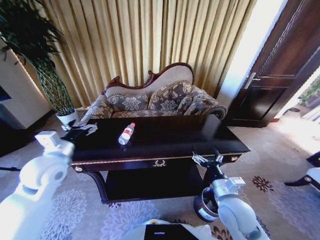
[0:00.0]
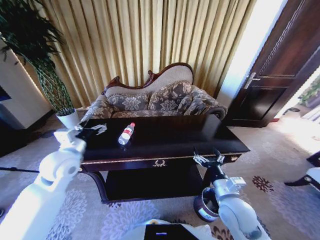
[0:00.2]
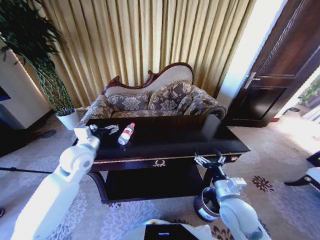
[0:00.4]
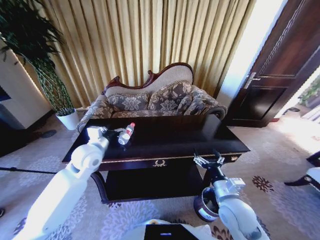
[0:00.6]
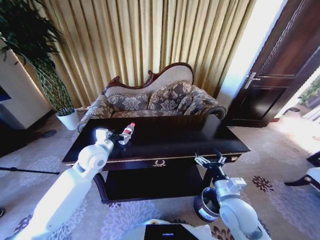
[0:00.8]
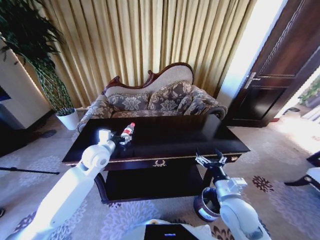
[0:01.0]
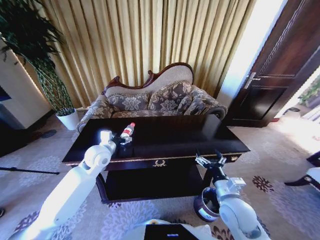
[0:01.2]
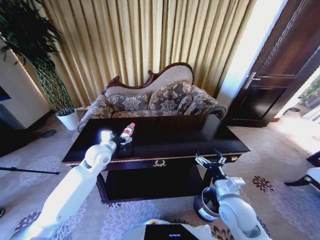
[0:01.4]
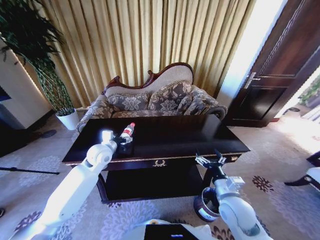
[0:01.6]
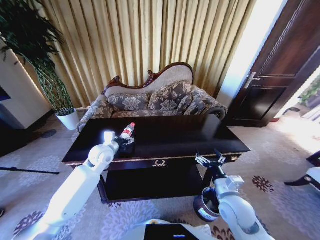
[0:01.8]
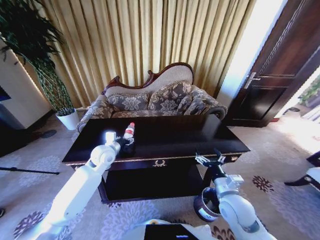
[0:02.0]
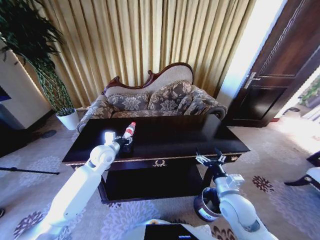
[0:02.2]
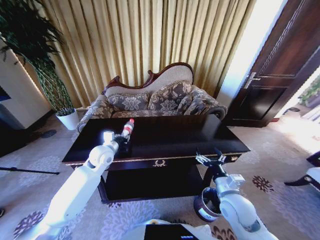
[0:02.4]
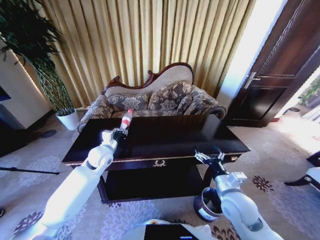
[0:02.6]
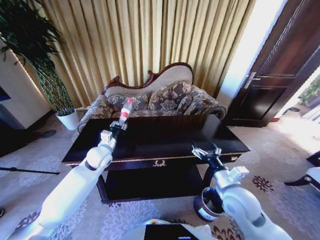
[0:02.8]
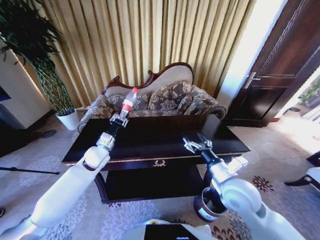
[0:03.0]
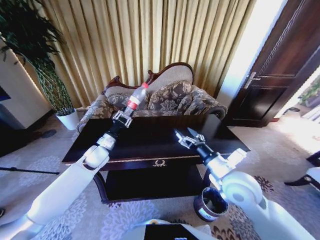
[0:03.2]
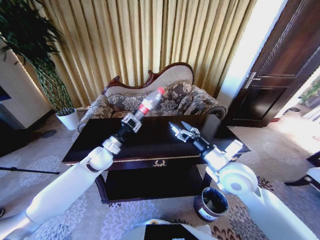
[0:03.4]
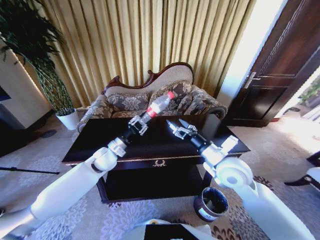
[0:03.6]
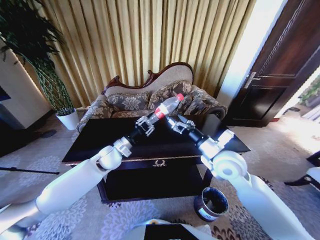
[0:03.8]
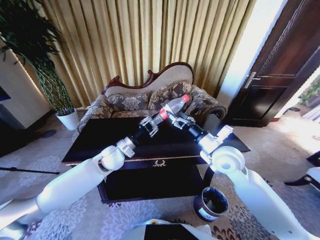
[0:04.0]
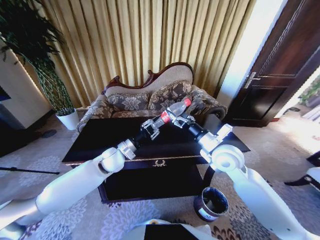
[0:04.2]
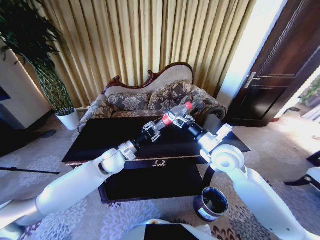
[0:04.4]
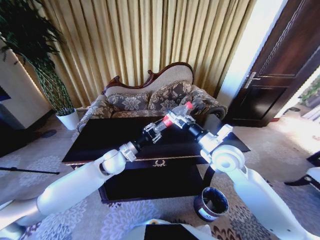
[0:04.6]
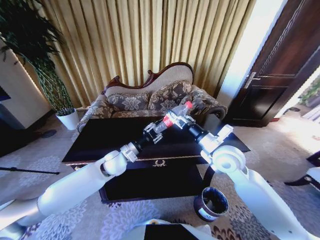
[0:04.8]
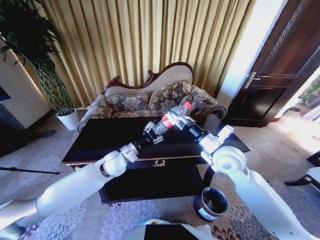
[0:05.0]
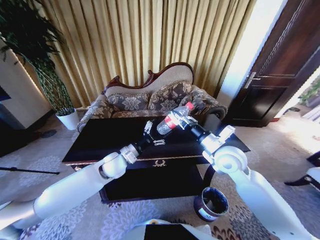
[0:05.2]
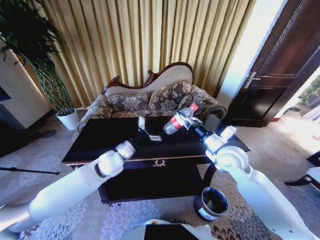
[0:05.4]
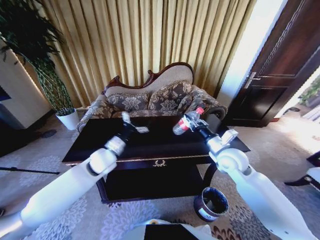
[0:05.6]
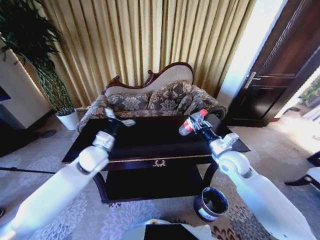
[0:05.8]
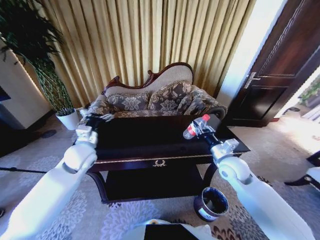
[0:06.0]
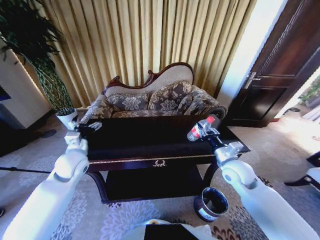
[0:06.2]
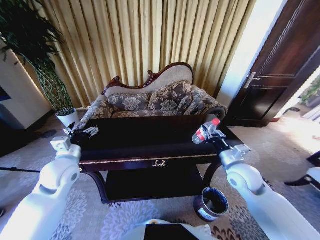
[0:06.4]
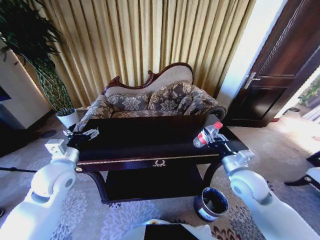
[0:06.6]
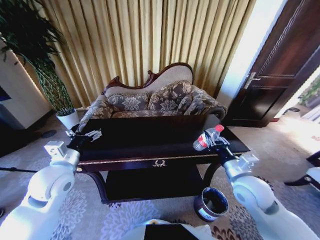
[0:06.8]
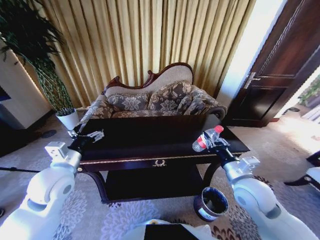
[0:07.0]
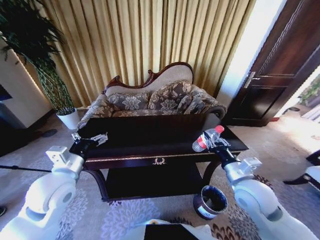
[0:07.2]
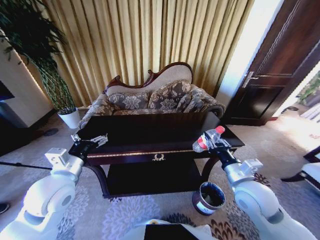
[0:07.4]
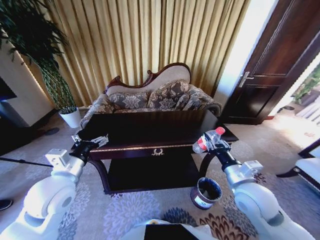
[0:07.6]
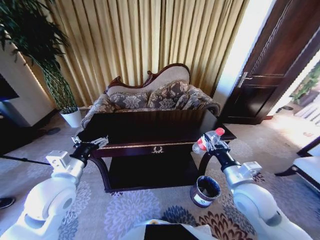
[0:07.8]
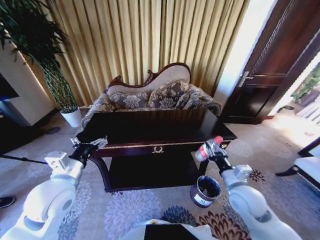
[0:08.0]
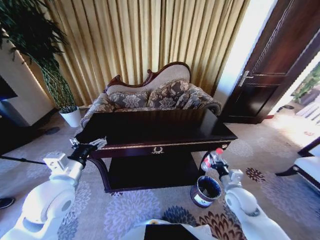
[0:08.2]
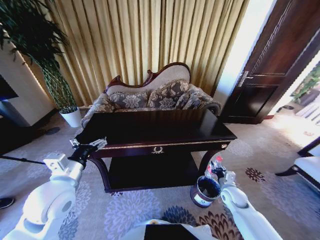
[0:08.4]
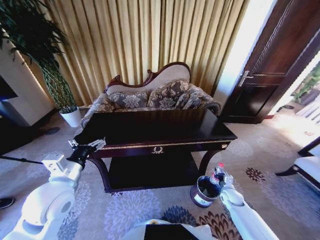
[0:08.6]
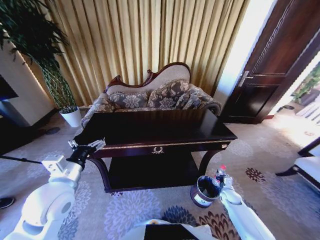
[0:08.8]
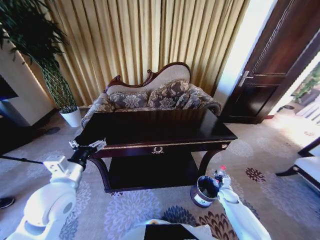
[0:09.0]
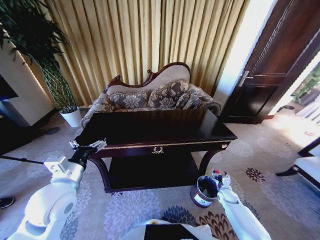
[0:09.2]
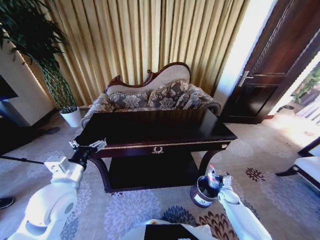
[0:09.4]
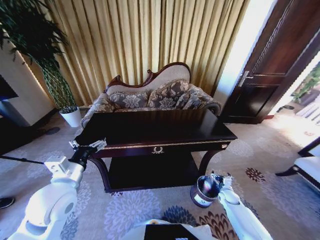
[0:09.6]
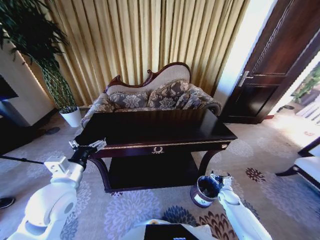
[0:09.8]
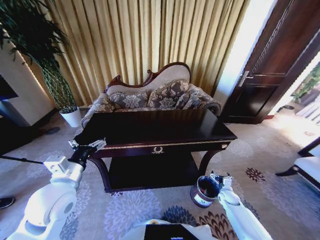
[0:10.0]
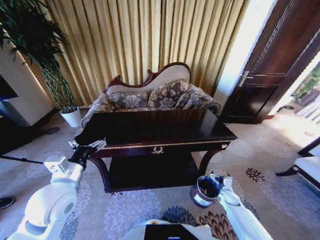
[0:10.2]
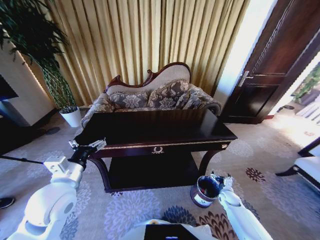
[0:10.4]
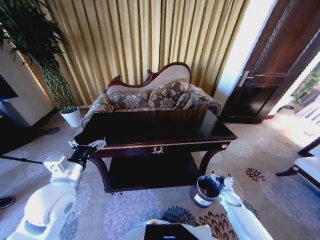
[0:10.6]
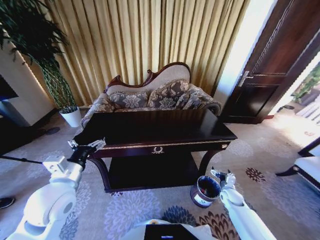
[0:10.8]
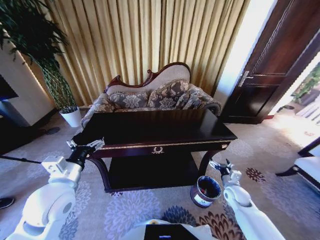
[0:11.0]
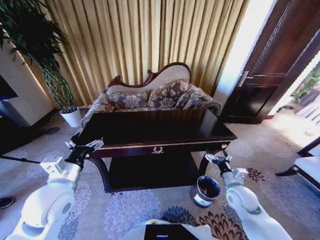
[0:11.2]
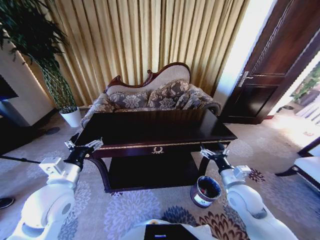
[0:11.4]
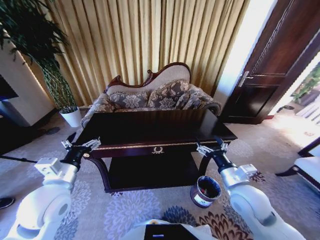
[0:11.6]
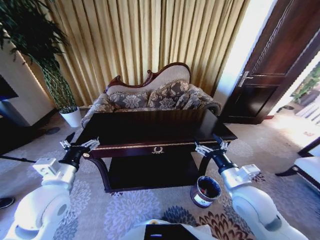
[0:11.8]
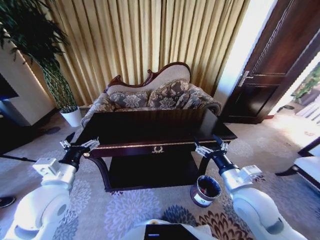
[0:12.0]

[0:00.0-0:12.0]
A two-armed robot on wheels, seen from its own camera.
Task of the whole recording: Move to the front of the table and place the trash on the table into the trash bin.
0:00.0 to 0:01.6: The left gripper moves forward, to the right and downward, some 15 cm.
0:01.6 to 0:03.0: The right gripper goes some 10 cm upward. The left gripper closes up.
0:03.0 to 0:04.4: The left gripper heads to the right, covering approximately 10 cm, while the right gripper heads forward, covering approximately 10 cm.
0:04.4 to 0:06.0: The left gripper is displaced to the left and upward by roughly 10 cm, and opens. The right gripper shifts approximately 10 cm downward and to the right, and closes its fingers.
0:06.0 to 0:07.6: Both grippers move backward, roughly 10 cm.
0:07.6 to 0:09.0: The right gripper moves downward and to the right, some 35 cm.
0:09.0 to 0:10.4: The right gripper opens up.
0:10.4 to 0:12.0: The right gripper is displaced upward and to the left by roughly 35 cm.

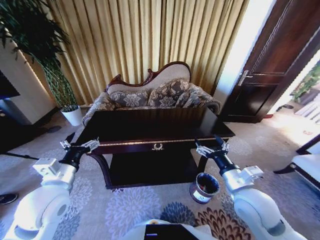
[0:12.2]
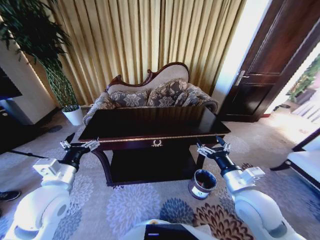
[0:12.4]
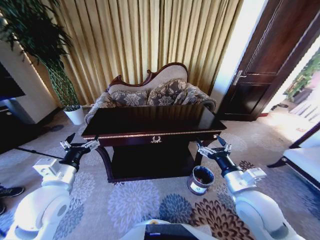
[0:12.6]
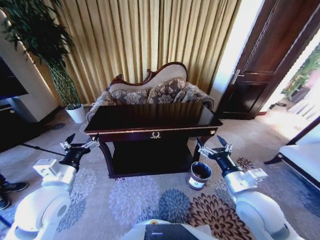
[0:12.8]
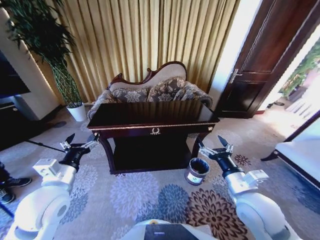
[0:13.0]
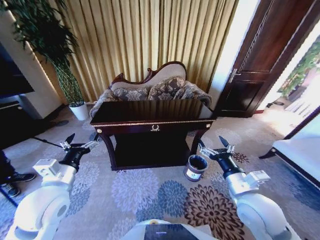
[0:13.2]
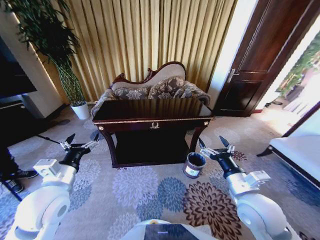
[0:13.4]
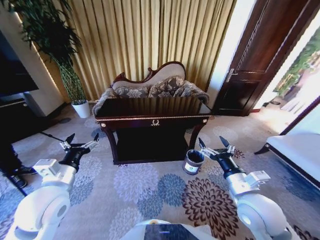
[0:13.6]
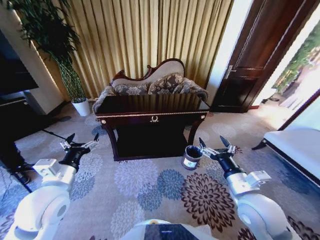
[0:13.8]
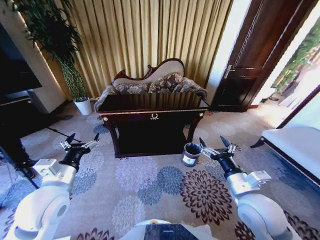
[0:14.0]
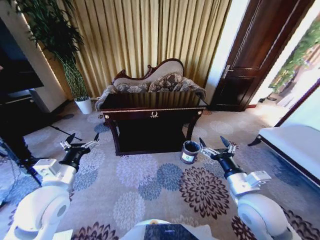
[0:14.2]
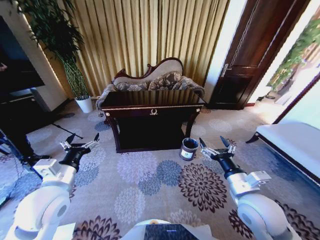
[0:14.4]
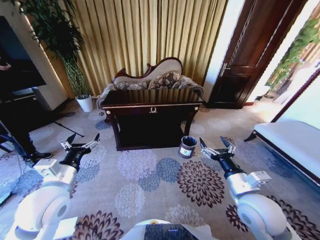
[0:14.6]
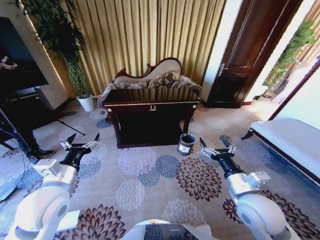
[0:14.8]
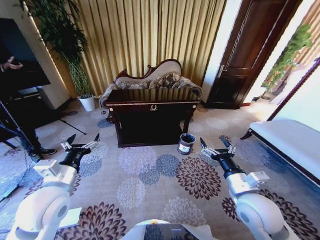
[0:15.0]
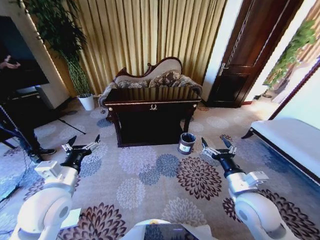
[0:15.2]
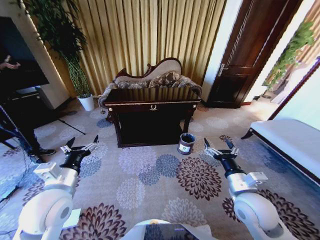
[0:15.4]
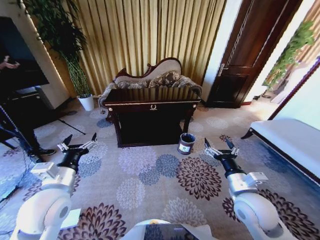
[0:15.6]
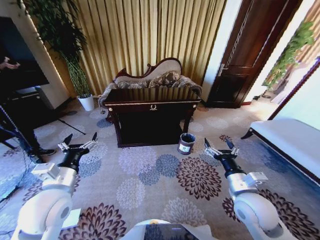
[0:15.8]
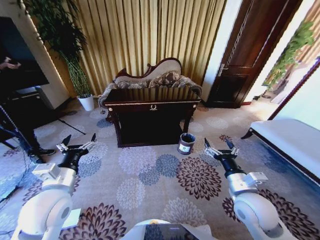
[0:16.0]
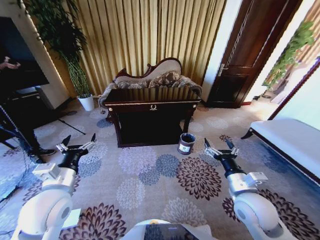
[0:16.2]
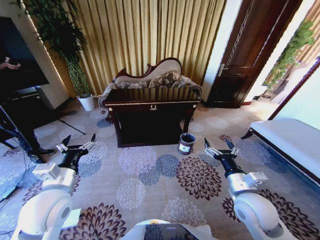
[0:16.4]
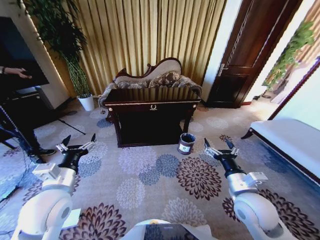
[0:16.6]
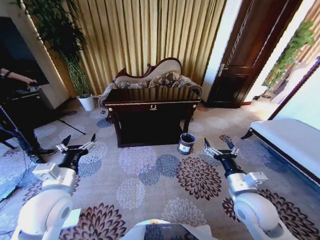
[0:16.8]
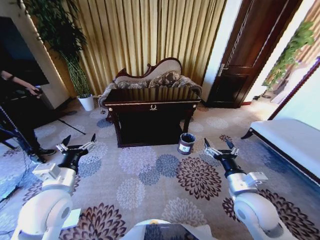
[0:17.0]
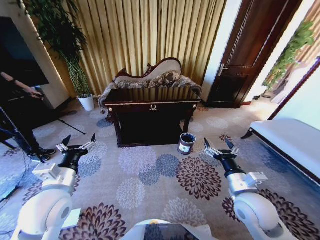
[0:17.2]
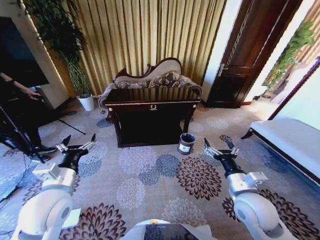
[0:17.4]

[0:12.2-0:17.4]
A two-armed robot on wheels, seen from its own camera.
Task of the whole recording: Move to the front of the table and place the trash on the table into the trash bin.
0:15.6 to 0:17.4: Neither gripper changes place.

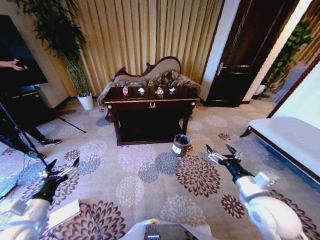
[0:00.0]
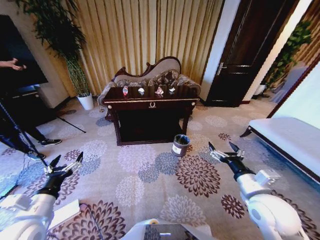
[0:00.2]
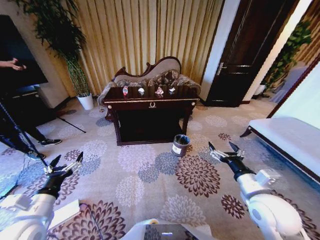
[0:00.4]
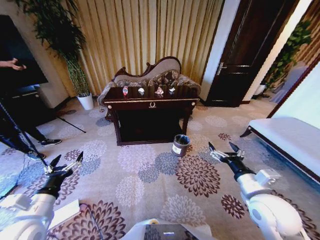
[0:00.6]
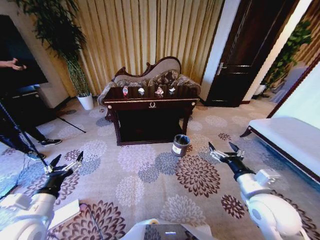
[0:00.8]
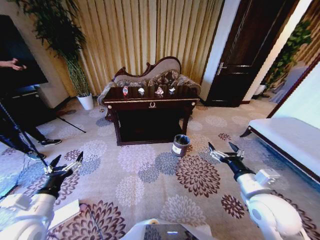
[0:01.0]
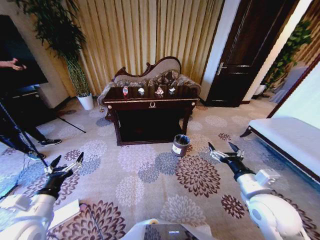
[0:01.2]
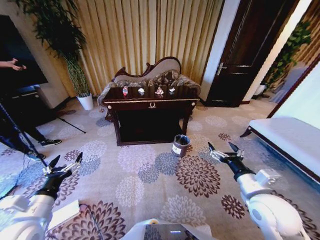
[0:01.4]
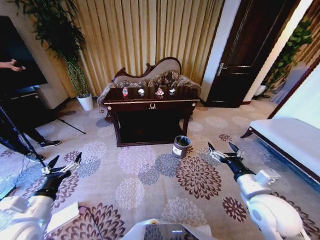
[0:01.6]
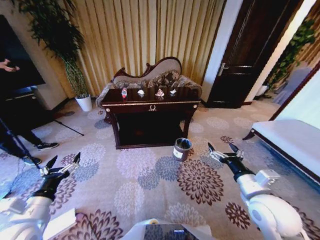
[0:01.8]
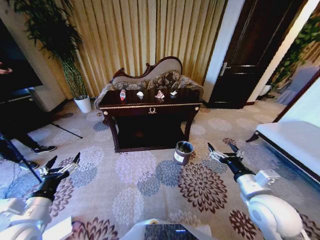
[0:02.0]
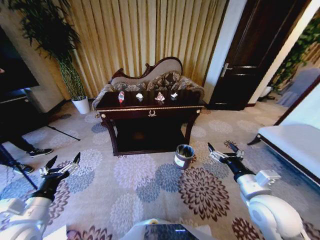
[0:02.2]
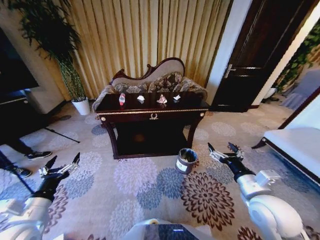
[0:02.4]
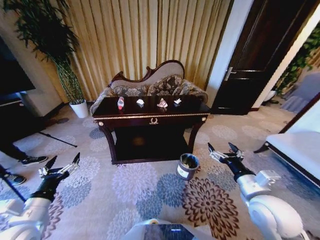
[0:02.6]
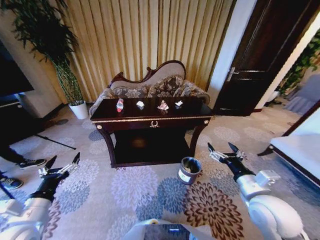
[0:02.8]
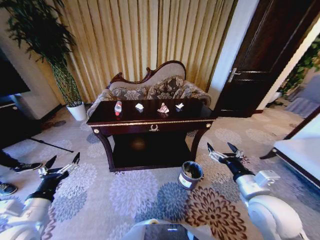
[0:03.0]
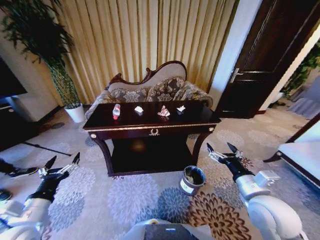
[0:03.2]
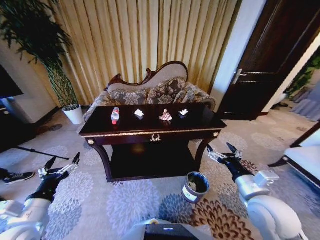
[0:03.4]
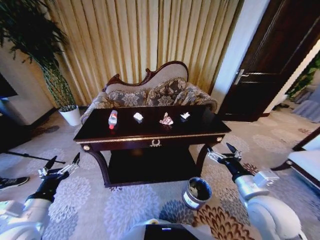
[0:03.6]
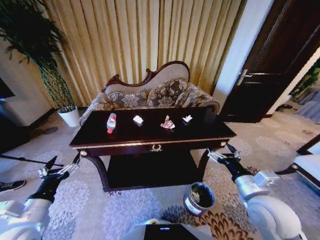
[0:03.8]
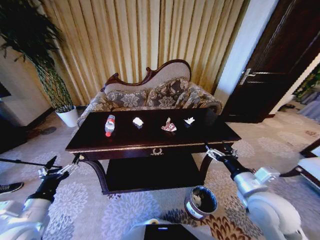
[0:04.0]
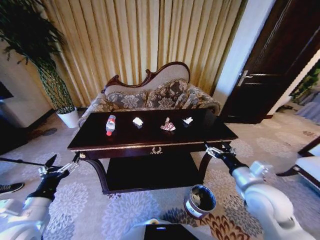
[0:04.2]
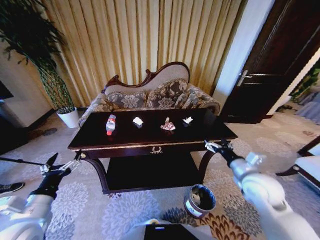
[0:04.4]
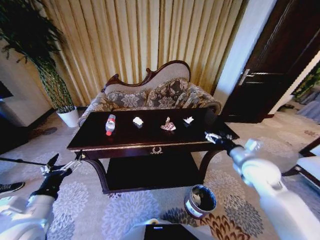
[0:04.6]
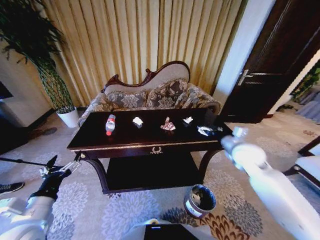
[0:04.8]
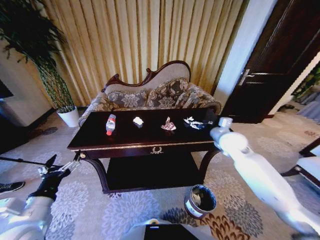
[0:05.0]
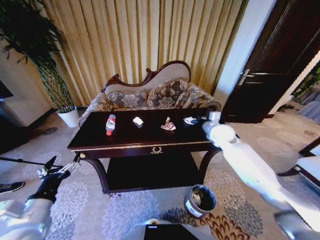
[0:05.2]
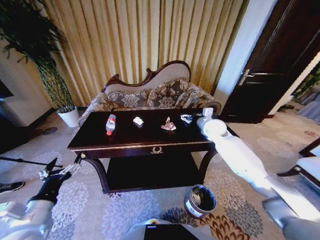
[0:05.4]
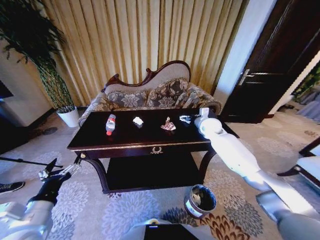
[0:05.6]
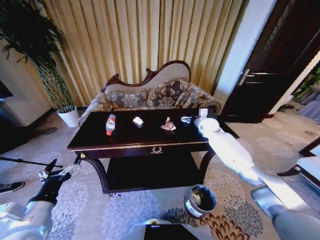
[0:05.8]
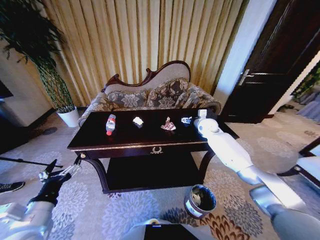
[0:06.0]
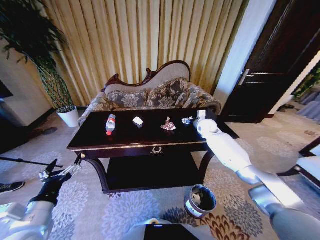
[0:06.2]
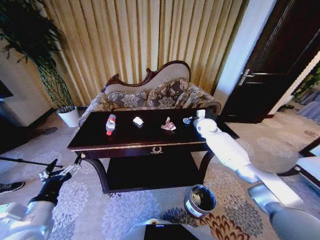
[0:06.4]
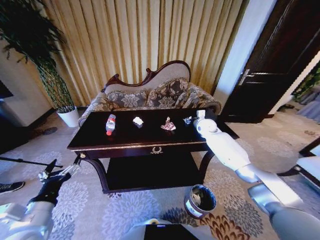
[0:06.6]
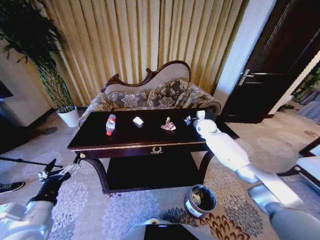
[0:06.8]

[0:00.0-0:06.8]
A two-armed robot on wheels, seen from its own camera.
Task of the whole recording: Move to the front of the table and place the trash on the table into the trash bin.
0:04.0 to 0:05.4: The right gripper heads forward, covering roughly 35 cm.
0:05.4 to 0:06.8: The right gripper is displaced forward by about 5 cm, and closes.
